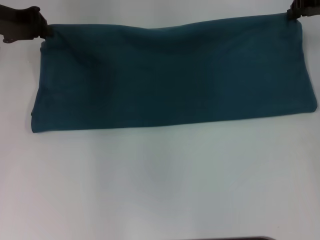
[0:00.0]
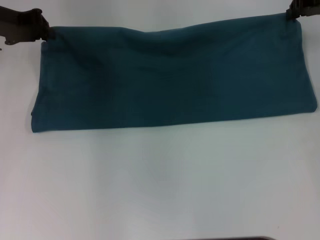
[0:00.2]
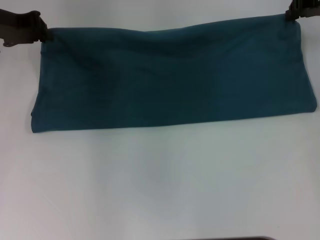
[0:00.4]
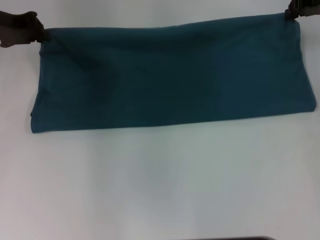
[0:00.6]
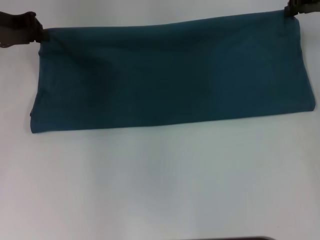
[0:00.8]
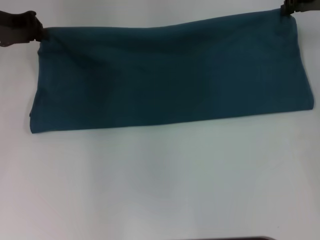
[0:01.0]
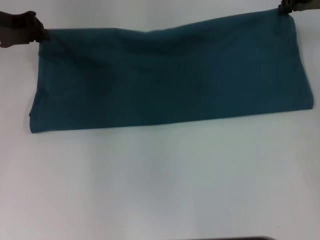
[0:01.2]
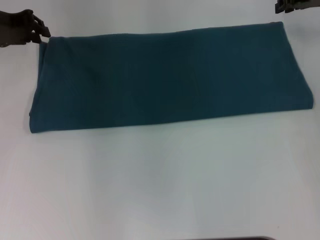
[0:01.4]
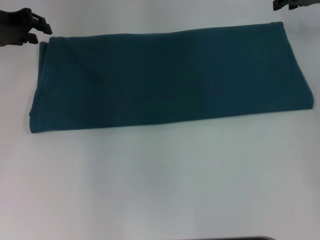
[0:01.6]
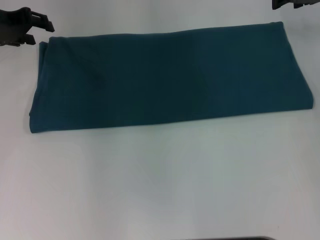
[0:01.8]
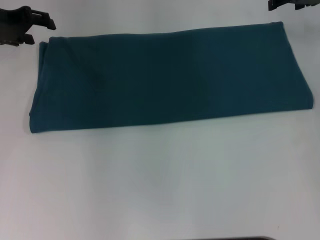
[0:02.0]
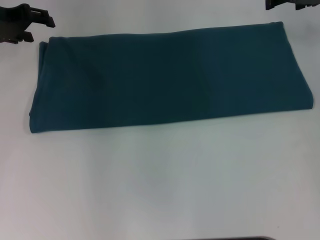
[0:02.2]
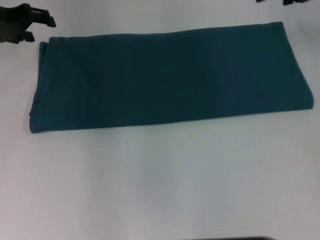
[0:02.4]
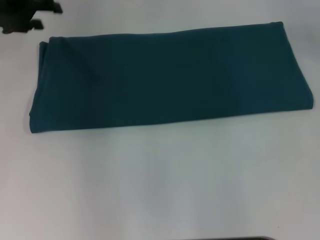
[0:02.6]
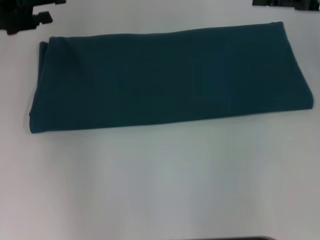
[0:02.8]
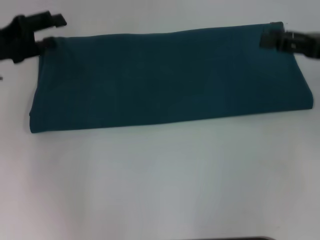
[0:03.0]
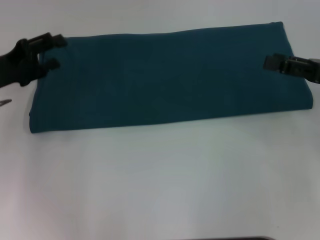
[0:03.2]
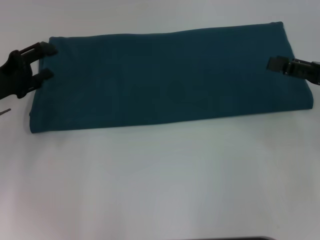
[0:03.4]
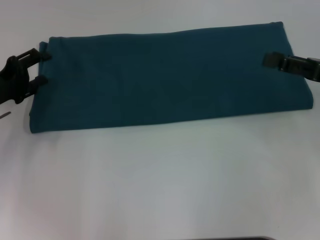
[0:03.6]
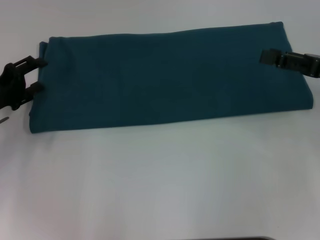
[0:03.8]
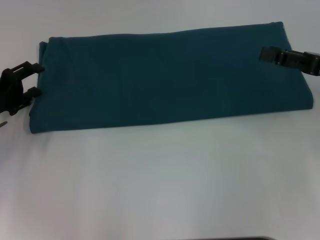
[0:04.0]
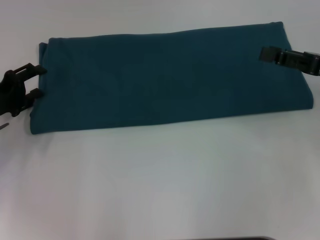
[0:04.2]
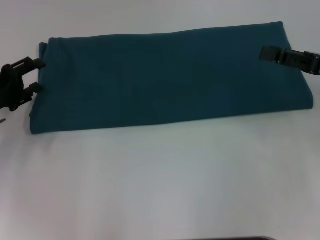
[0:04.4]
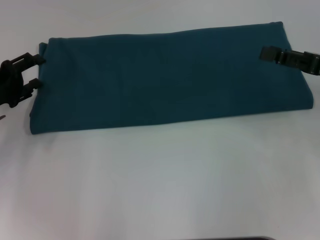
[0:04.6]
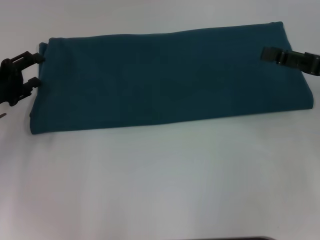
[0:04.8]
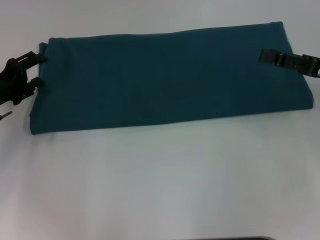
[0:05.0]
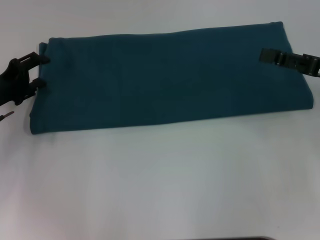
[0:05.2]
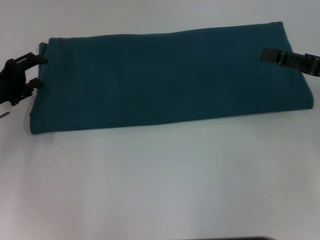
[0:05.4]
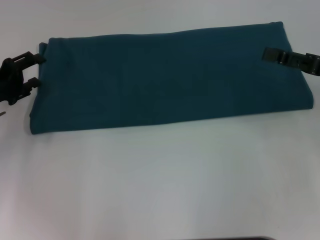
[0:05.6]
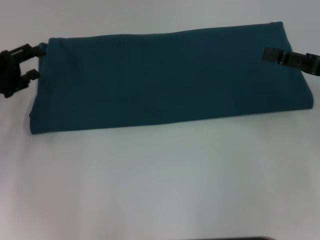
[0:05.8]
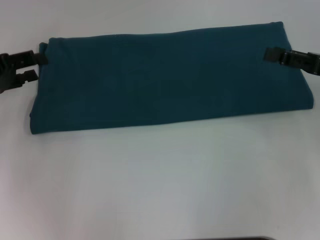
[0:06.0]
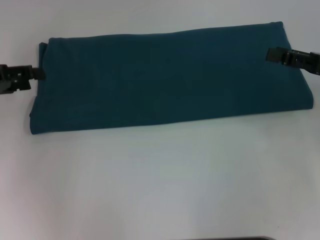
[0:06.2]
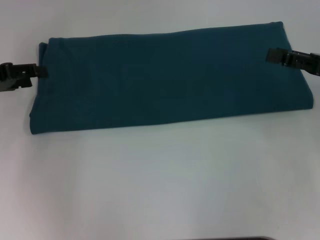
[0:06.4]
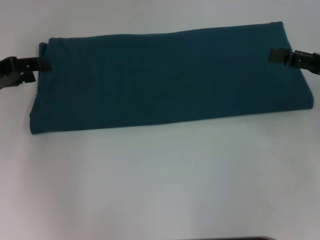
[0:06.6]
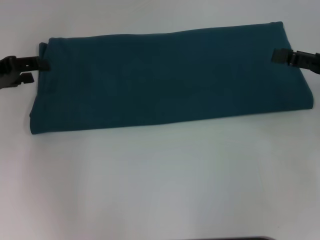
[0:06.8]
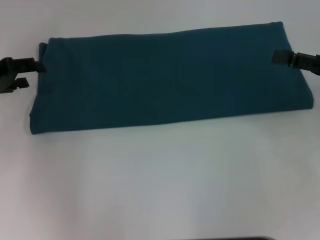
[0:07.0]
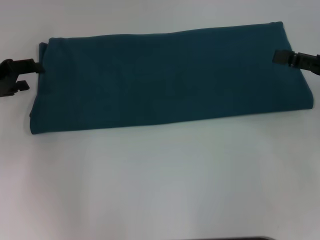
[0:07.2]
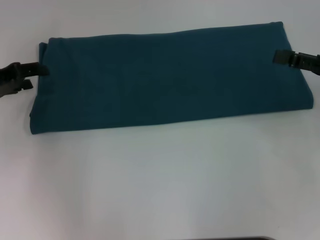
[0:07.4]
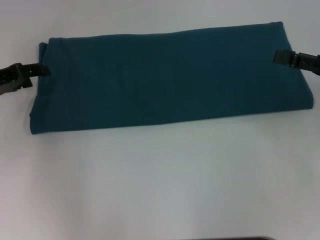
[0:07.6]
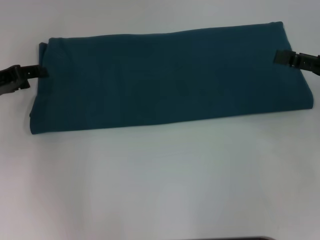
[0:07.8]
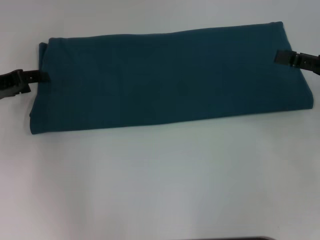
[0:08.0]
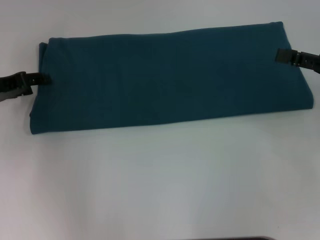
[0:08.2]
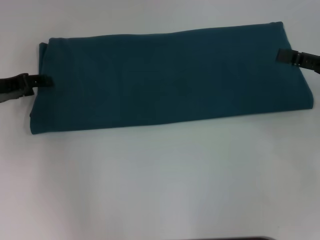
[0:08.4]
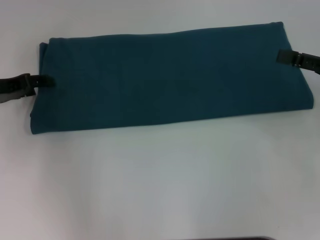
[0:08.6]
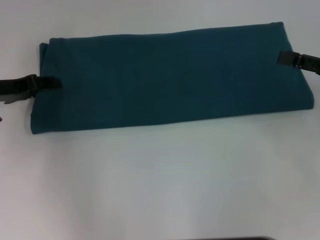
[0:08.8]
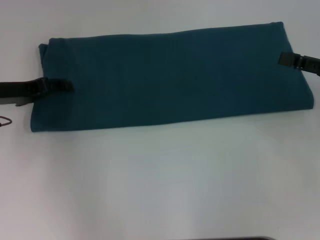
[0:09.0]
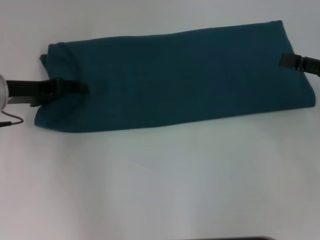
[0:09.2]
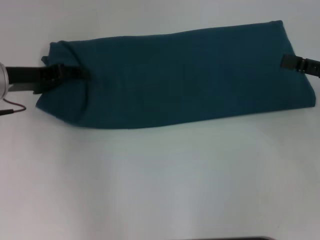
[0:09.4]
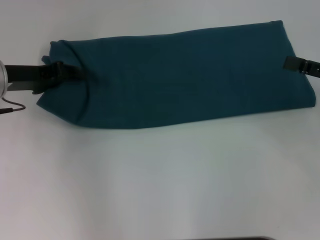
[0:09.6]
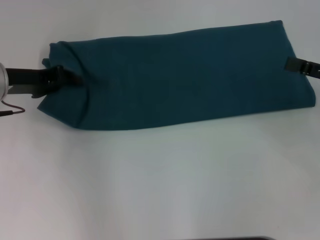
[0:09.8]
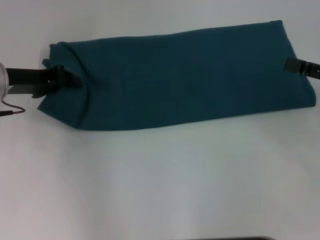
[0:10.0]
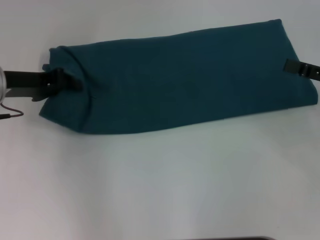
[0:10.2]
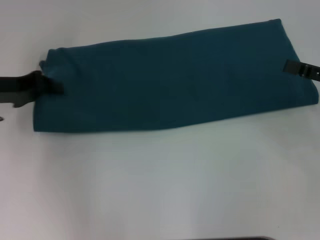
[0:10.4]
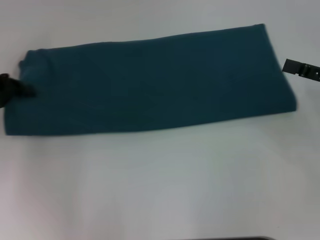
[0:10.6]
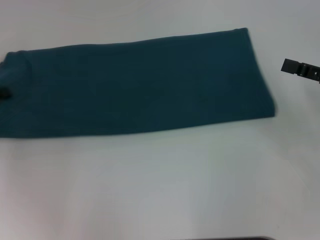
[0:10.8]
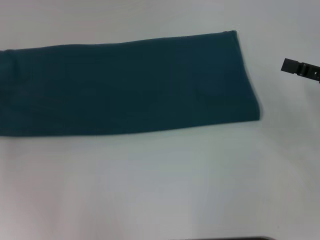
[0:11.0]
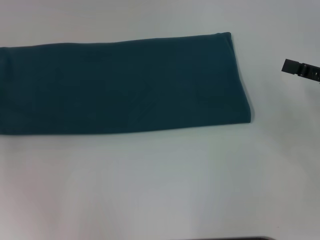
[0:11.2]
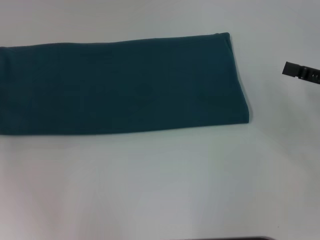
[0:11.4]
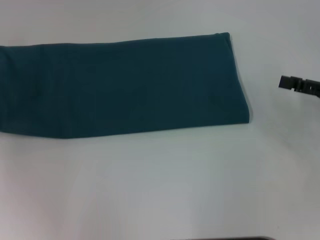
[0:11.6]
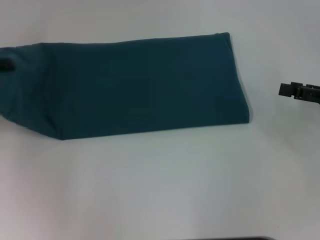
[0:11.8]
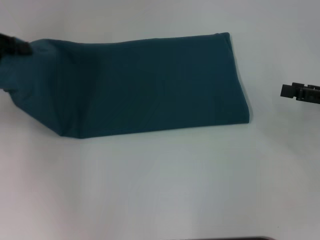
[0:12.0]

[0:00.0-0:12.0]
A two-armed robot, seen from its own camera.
0:00.0 to 0:01.6: The grippers move only a little.
0:01.6 to 0:03.0: The left gripper travels backward by approximately 10 cm, and opens its fingers. Meanwhile the right gripper goes approximately 15 cm backward, and opens its fingers.
0:03.0 to 0:04.4: The left gripper travels downward by approximately 10 cm.
0:04.4 to 0:06.0: The left gripper shifts about 5 cm upward.
0:06.0 to 0:07.6: The grippers move only a little.
0:07.6 to 0:09.0: The grippers make only small movements.
0:09.0 to 0:10.4: The left gripper closes up.
0:10.4 to 0:12.0: The left gripper moves upward, roughly 5 cm.

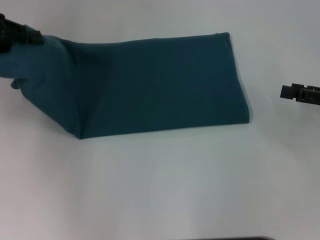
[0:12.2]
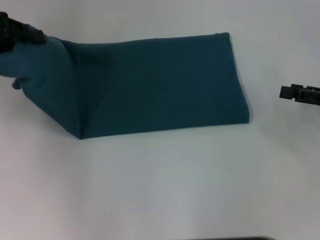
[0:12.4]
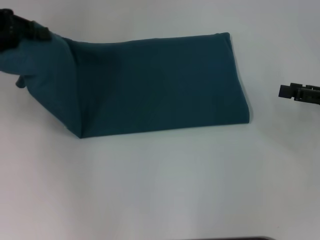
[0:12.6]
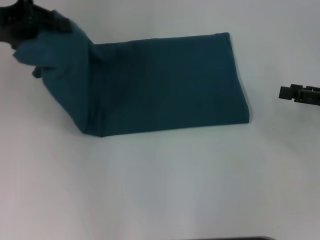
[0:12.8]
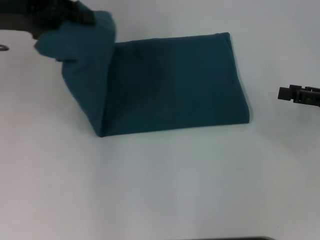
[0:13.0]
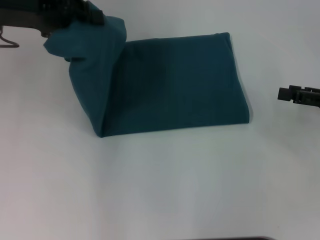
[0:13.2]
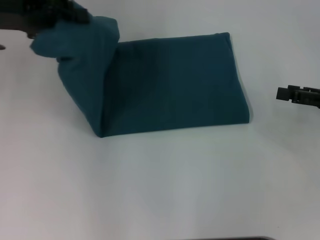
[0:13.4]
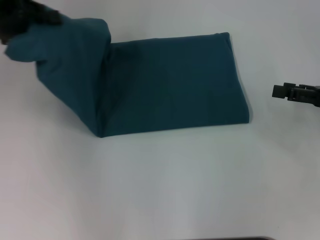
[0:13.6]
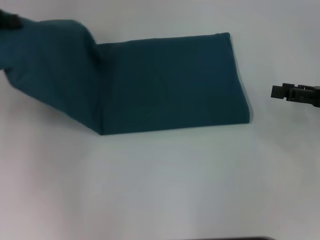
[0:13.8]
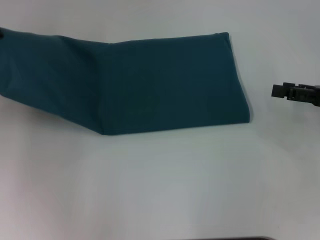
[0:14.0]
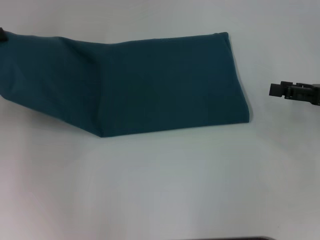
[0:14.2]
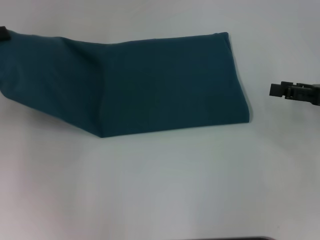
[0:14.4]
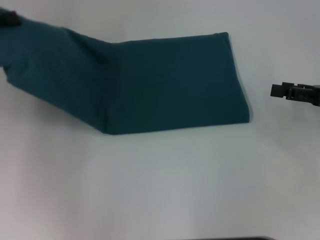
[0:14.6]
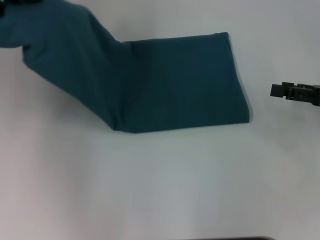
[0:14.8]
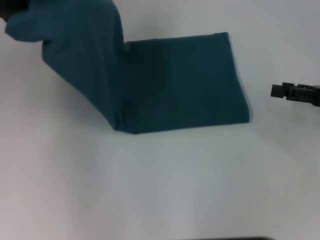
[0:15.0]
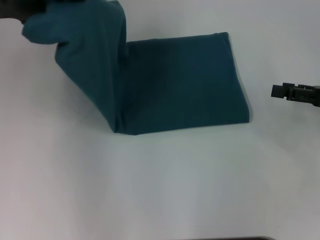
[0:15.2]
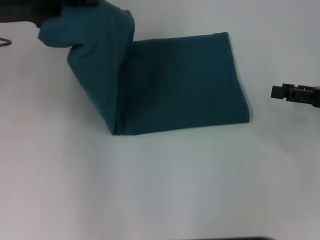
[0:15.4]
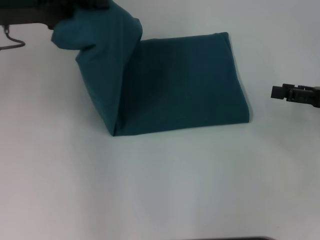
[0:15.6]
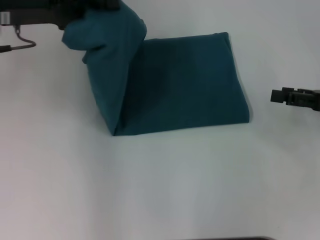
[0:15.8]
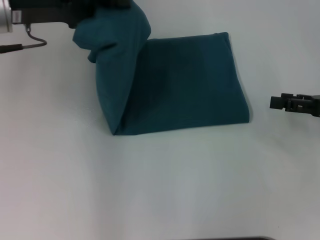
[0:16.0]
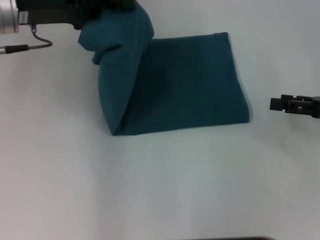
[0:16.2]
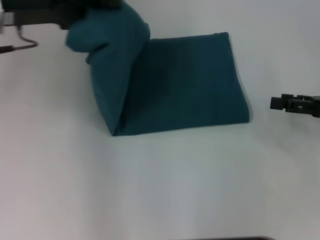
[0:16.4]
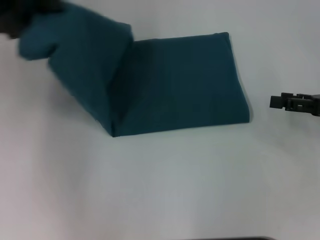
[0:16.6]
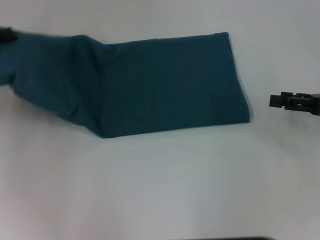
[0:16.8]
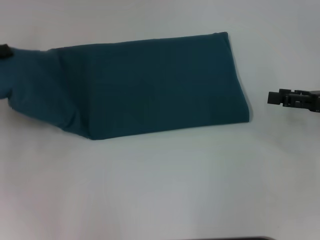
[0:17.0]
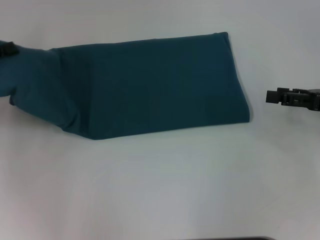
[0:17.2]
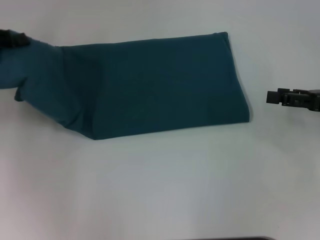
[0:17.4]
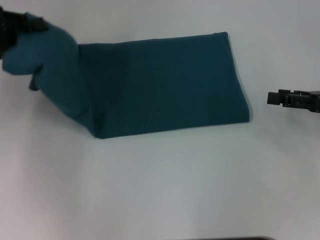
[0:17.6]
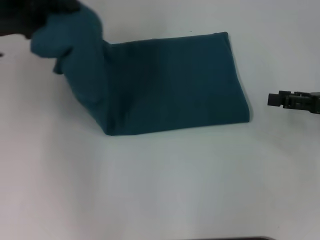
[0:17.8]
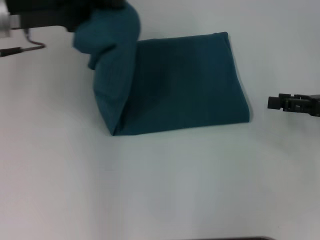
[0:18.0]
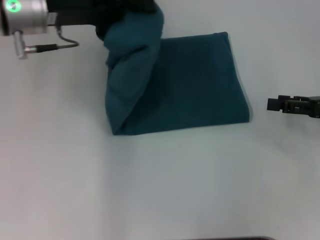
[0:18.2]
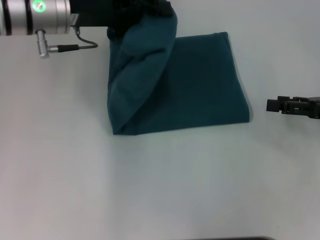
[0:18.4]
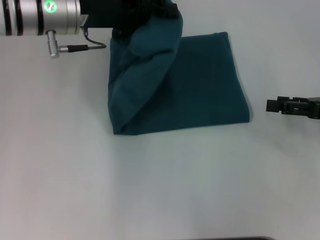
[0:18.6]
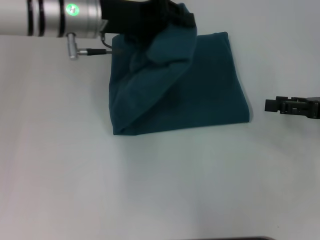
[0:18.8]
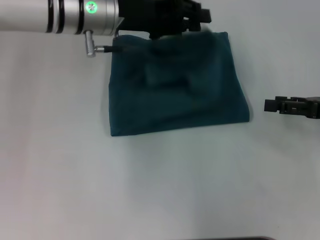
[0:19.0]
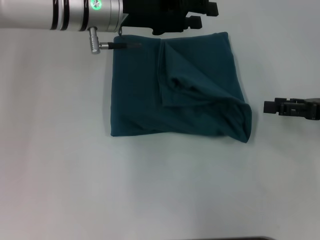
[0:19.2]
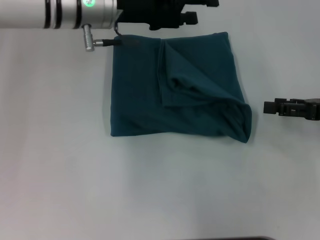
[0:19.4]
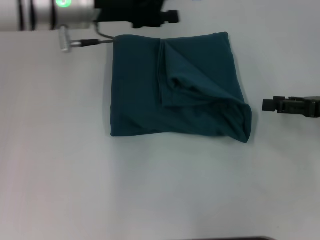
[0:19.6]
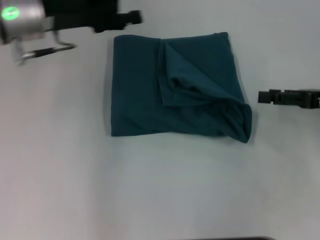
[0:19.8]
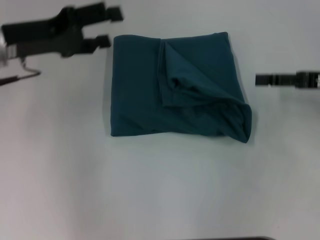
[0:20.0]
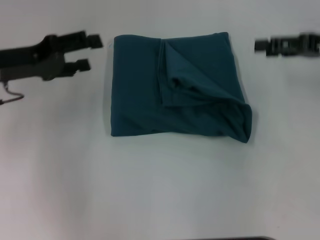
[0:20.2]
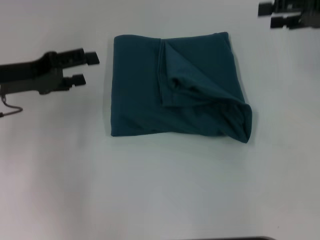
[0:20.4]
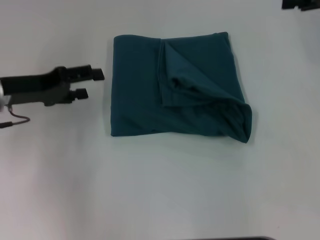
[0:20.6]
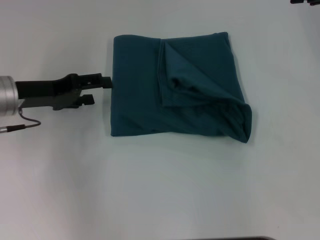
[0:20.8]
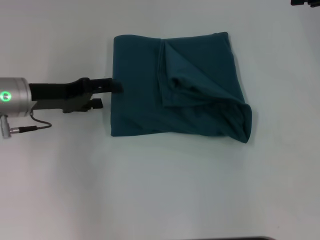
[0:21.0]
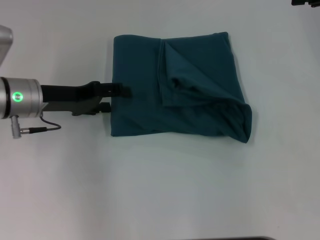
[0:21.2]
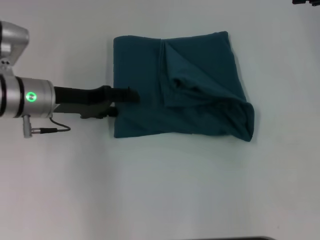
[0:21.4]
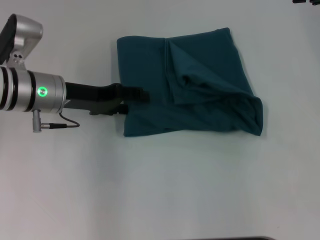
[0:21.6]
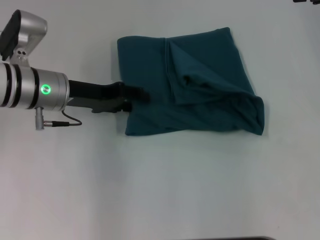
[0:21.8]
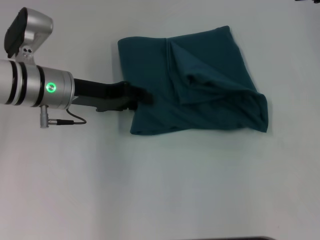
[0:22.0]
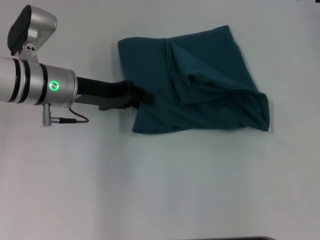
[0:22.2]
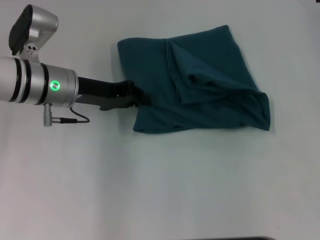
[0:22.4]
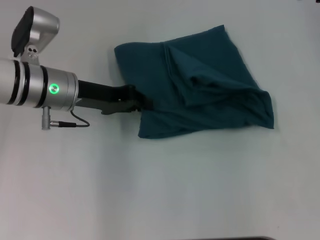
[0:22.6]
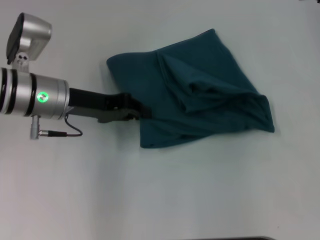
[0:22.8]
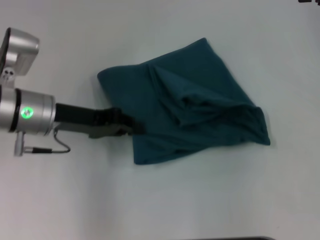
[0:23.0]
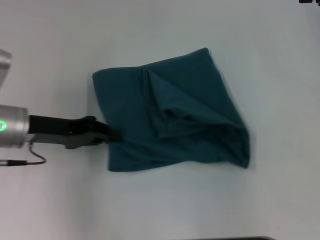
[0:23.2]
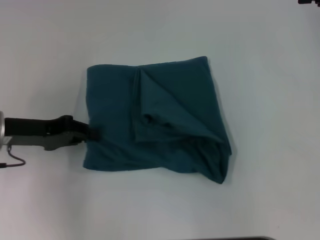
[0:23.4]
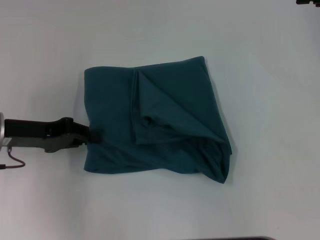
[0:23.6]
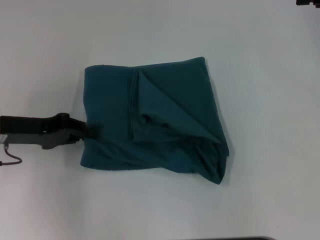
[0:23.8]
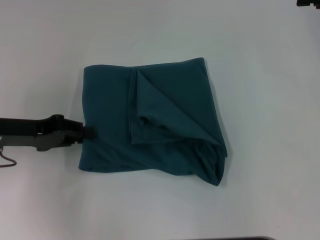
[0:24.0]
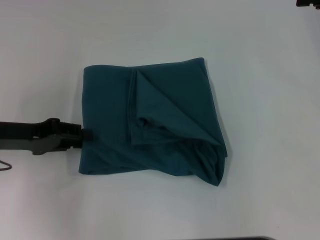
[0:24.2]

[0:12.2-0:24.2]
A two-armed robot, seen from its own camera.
Step, 0:12.2 to 0:19.0: Fold the clothes to the left.
0:12.2 to 0:13.8: The left gripper travels to the right and back again, roughly 10 cm each way.
0:13.8 to 0:15.2: The left gripper heads to the right, covering roughly 5 cm.
0:15.2 to 0:16.6: The left gripper reaches roughly 5 cm to the right, then returns.
0:16.6 to 0:18.2: The left gripper goes some 10 cm to the right.
0:18.2 to 0:19.8: The left gripper goes to the right and returns, approximately 10 cm each way, and opens its fingers.
0:19.8 to 0:21.2: The right gripper goes roughly 15 cm upward and forward, while the left gripper moves downward, about 10 cm.
0:21.2 to 0:22.6: The left gripper is displaced to the right by roughly 5 cm, and closes.
0:22.6 to 0:24.2: The left gripper is displaced to the left and backward by some 15 cm.
